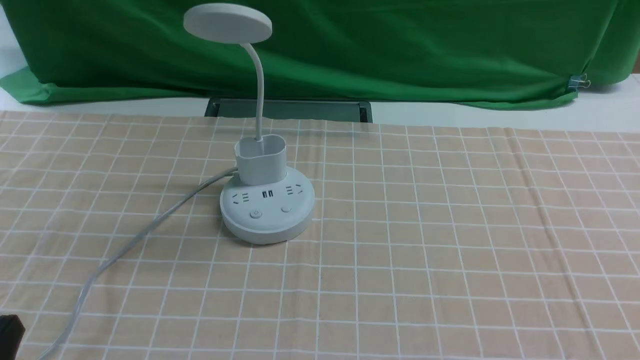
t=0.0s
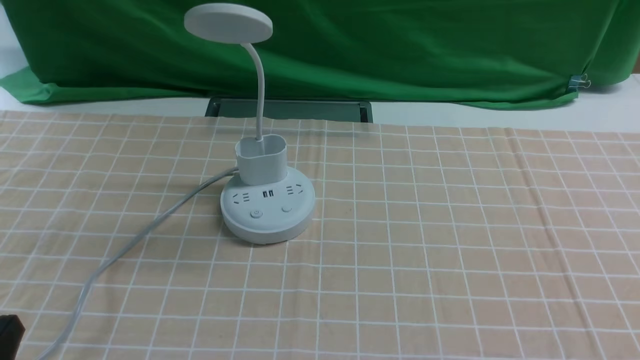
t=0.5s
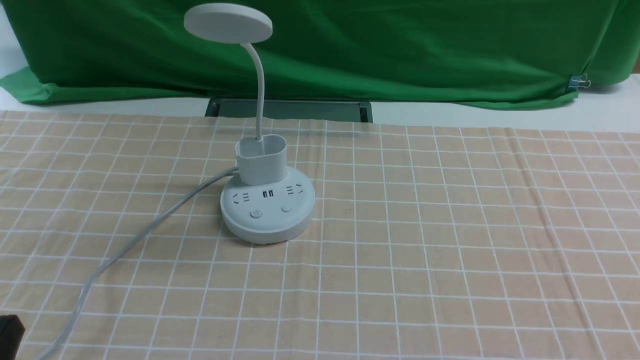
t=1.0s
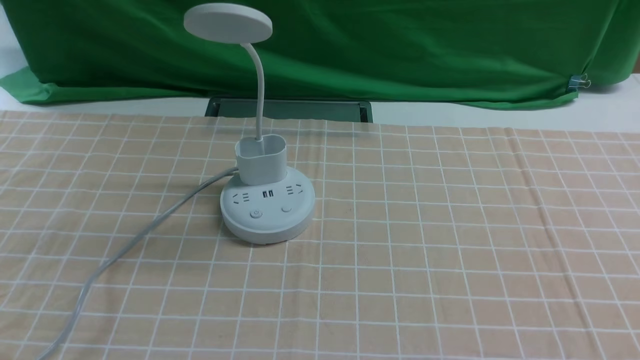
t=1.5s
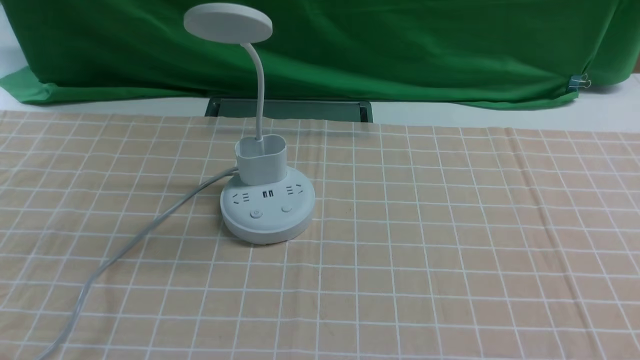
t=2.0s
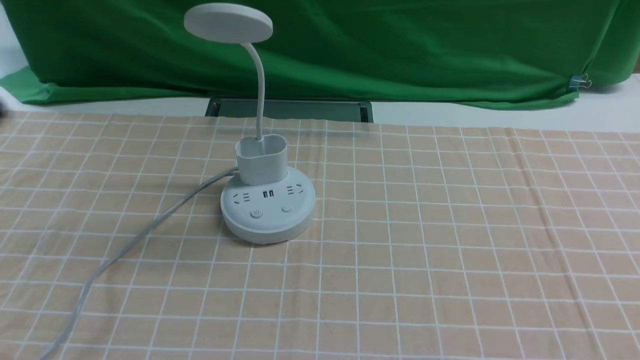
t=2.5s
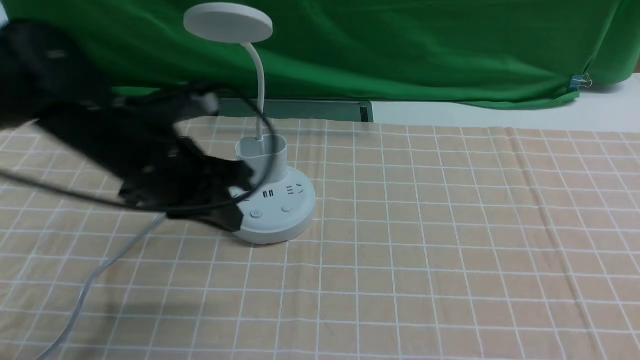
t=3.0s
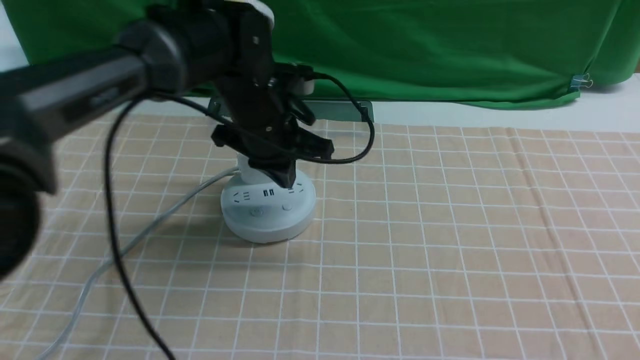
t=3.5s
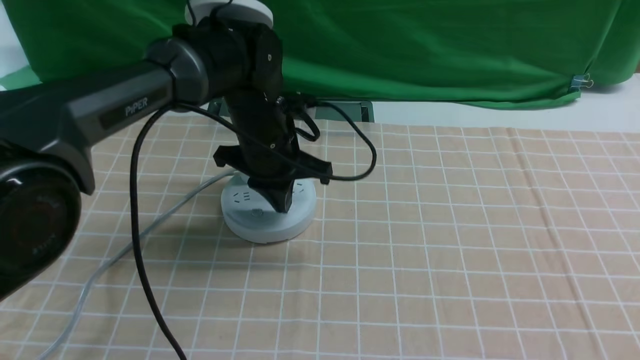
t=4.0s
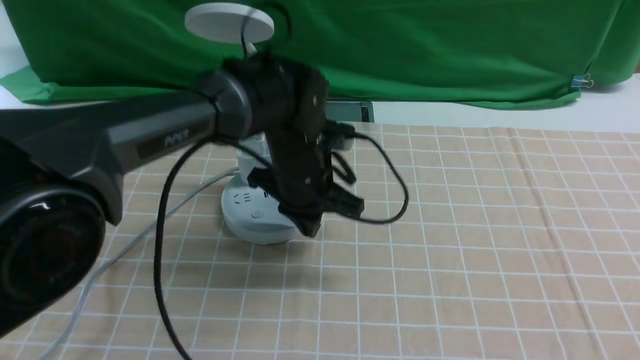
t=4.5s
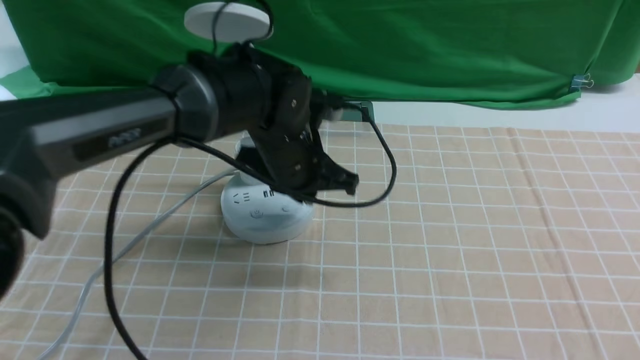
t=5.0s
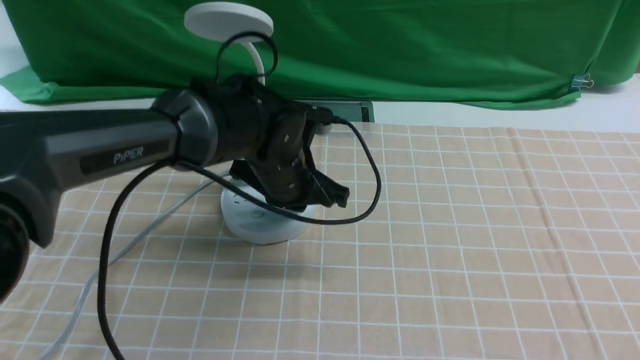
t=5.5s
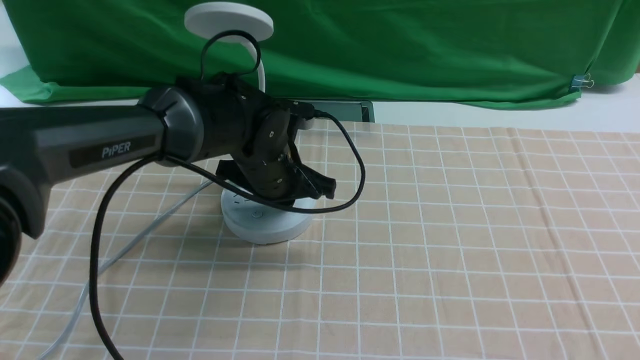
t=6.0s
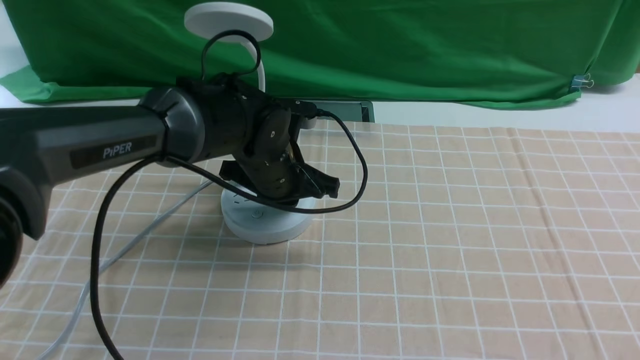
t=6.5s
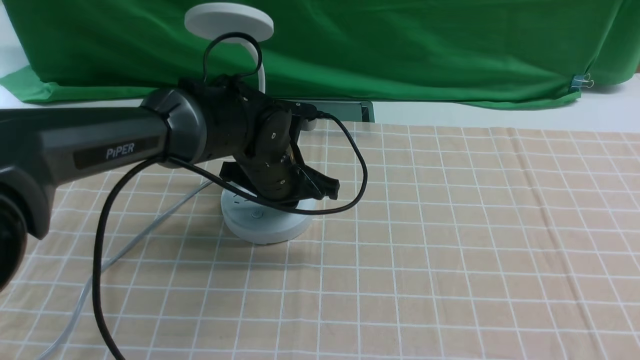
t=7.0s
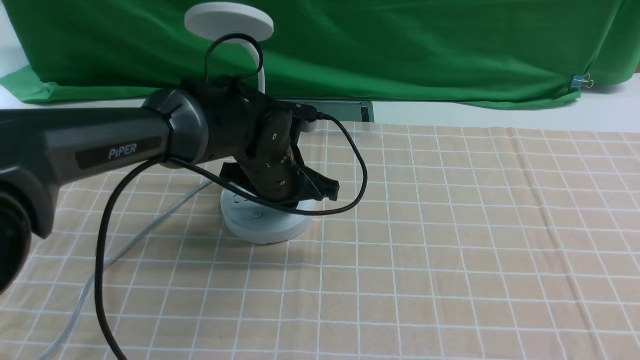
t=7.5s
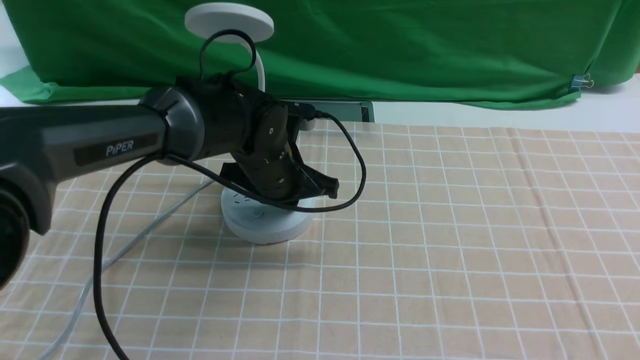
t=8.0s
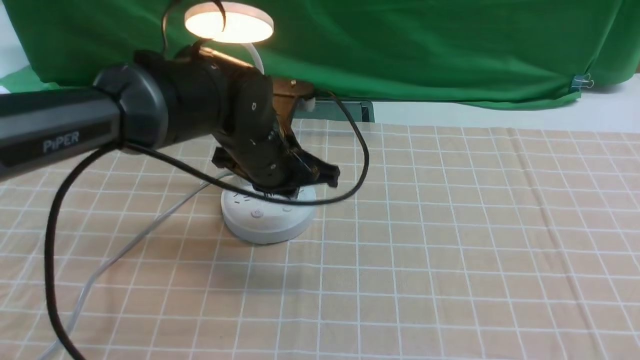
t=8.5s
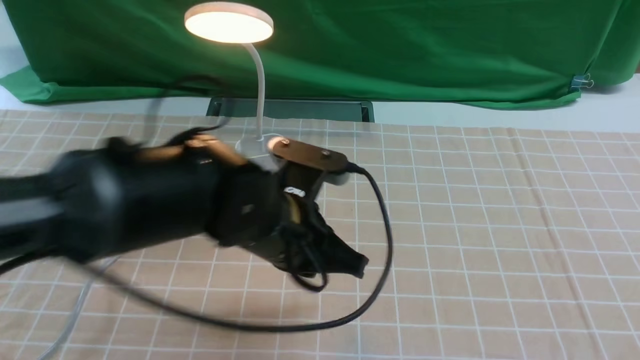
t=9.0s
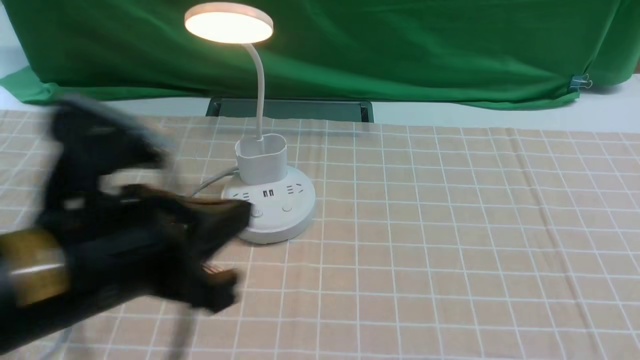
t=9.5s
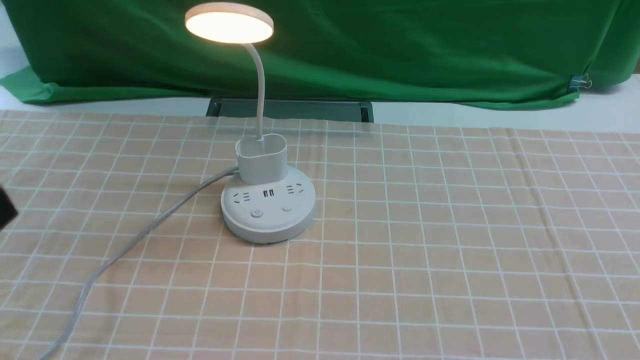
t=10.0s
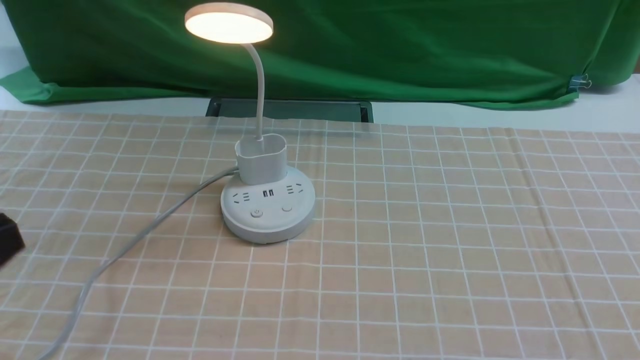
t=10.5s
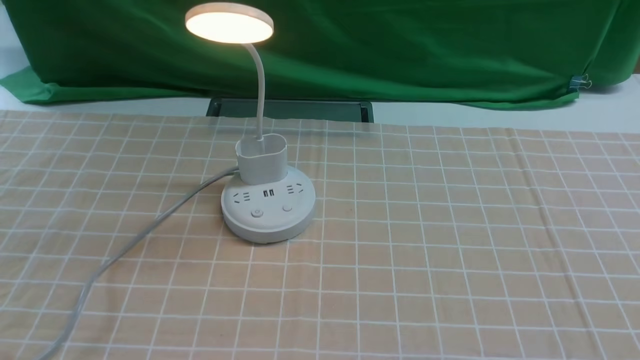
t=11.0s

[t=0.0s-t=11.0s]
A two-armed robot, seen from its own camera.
Step, t=0.0s to t=8.5s: use the left arm to press the button switch on the lamp holder.
t=2.0s to t=3.5s: The left gripper goes some 40 cm forward and to the right.
t=3.5s to t=5.5s: The left gripper shifts by approximately 5 cm, and closes its fingers.
t=5.5s to t=7.5s: The grippers move only a little.
t=7.5s to t=9.0s: The left gripper shifts roughly 15 cm backward and upward.
t=9.0s to t=11.0s: The left gripper moves to the left and backward, approximately 30 cm.

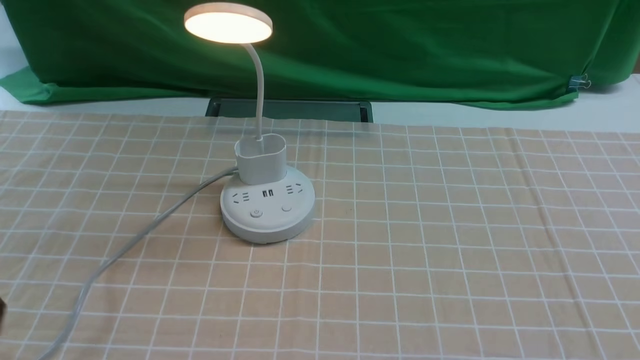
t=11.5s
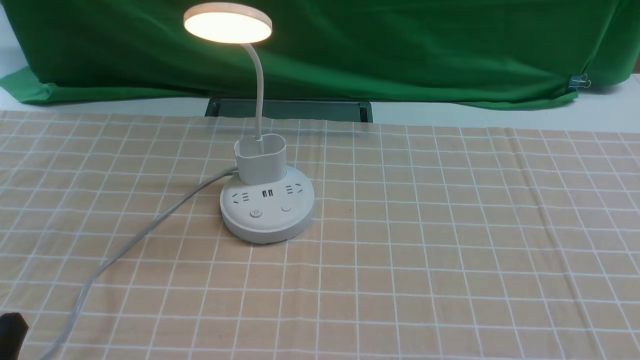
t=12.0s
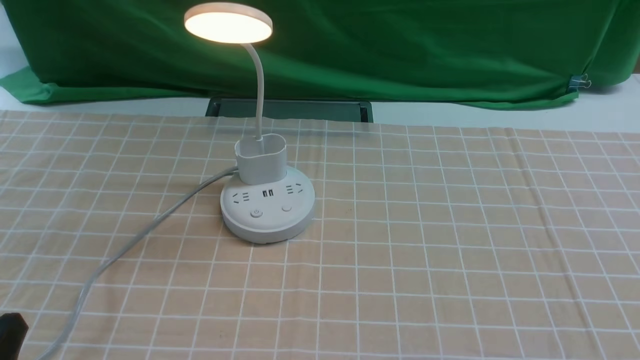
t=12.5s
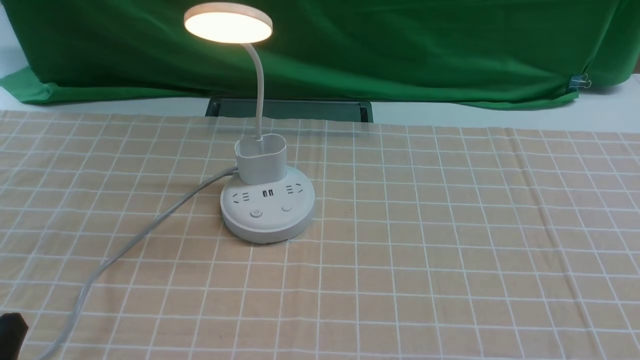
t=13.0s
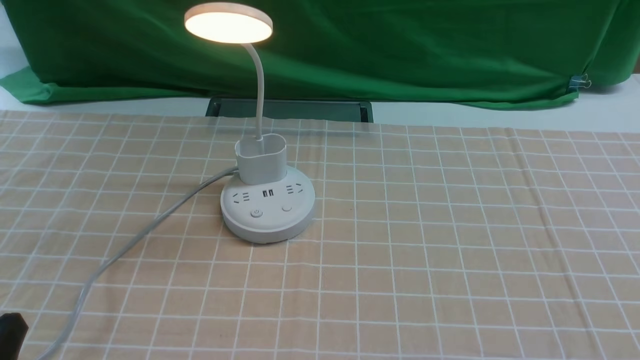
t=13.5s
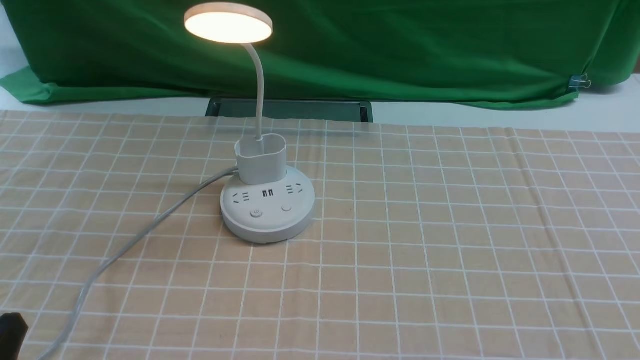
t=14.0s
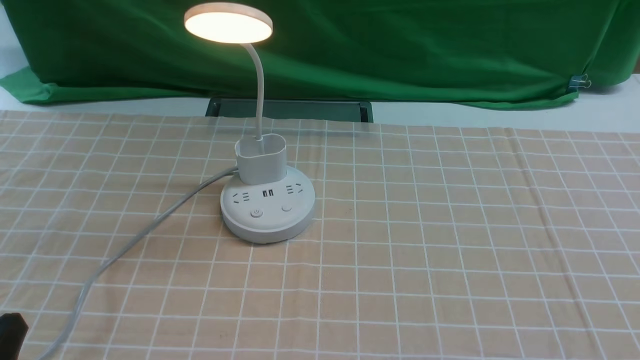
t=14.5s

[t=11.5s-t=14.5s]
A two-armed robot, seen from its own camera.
t=13.0s to t=14.5s: Both grippers stay about where they are.
